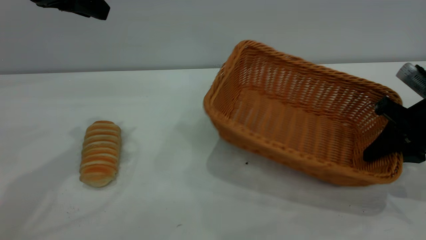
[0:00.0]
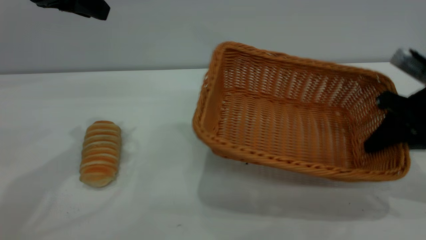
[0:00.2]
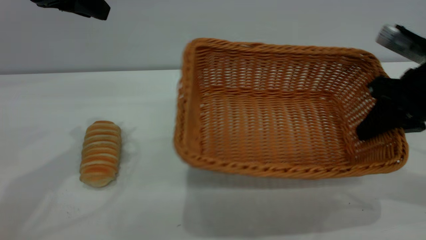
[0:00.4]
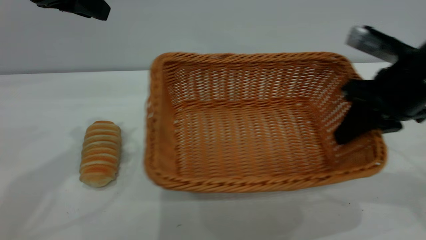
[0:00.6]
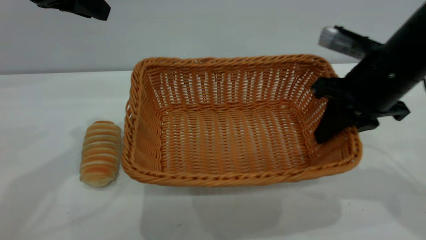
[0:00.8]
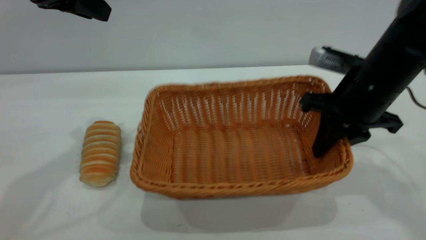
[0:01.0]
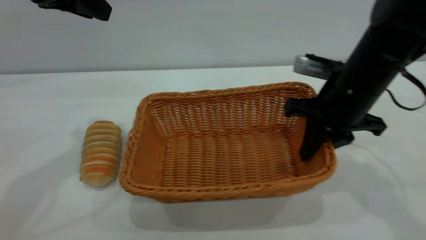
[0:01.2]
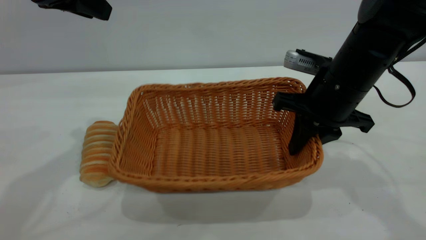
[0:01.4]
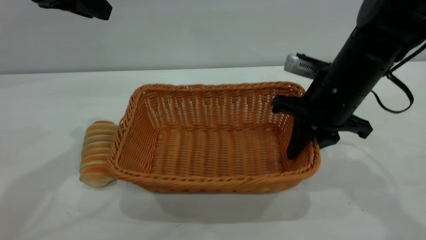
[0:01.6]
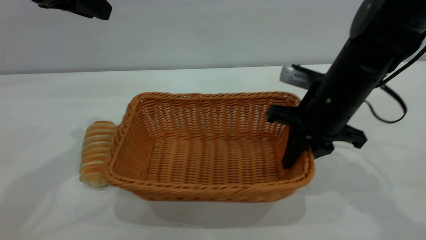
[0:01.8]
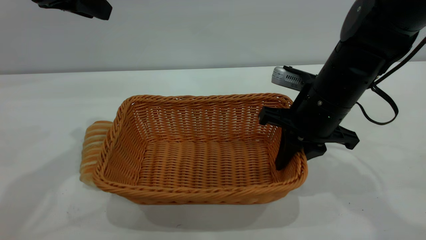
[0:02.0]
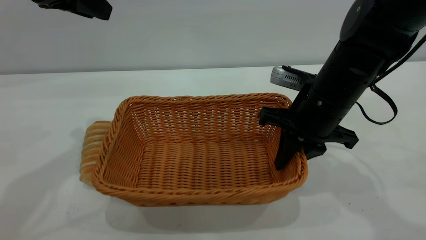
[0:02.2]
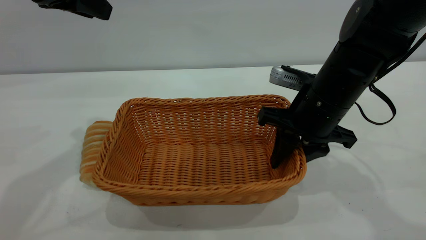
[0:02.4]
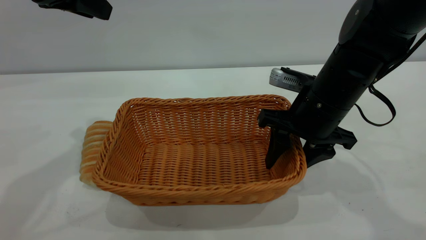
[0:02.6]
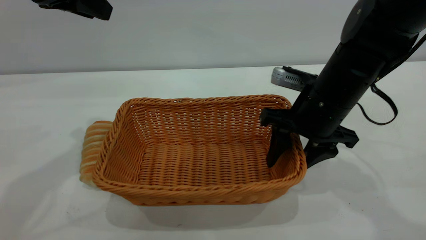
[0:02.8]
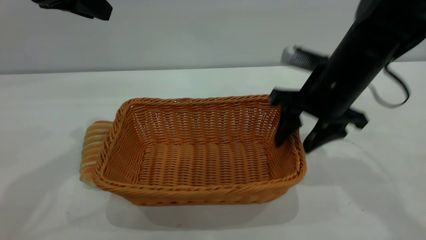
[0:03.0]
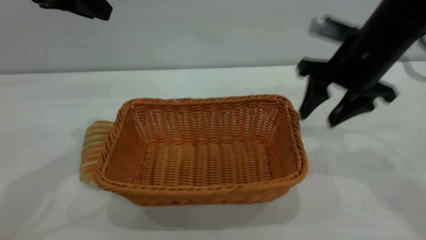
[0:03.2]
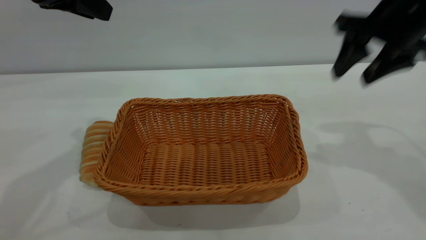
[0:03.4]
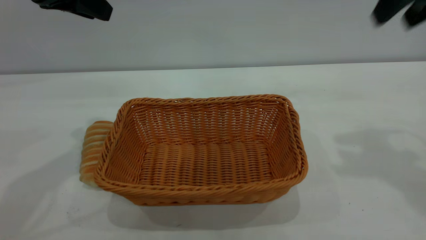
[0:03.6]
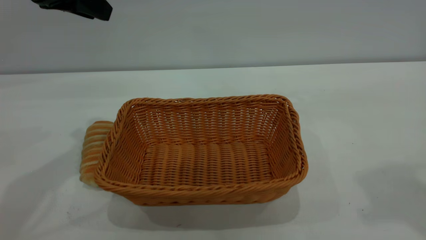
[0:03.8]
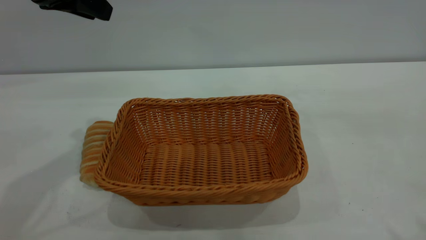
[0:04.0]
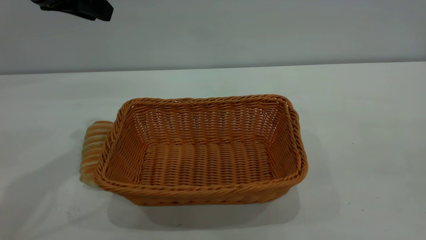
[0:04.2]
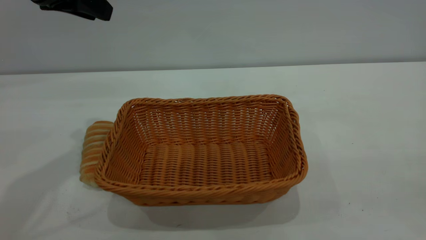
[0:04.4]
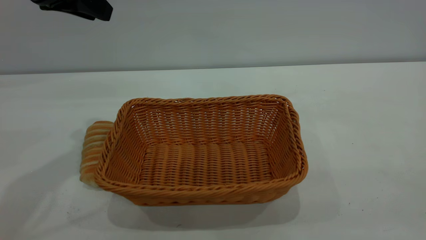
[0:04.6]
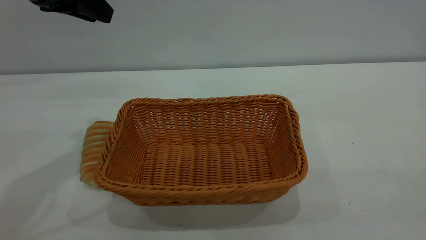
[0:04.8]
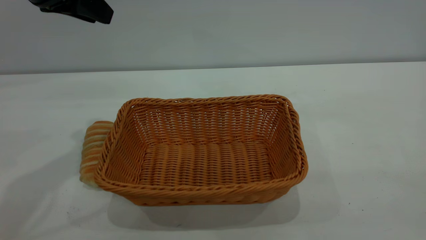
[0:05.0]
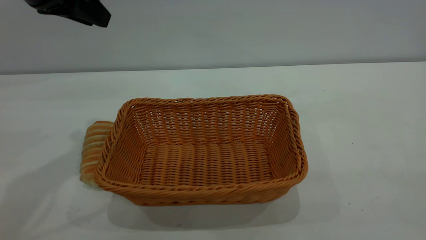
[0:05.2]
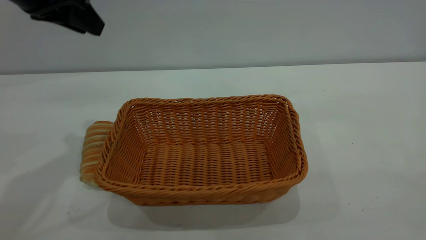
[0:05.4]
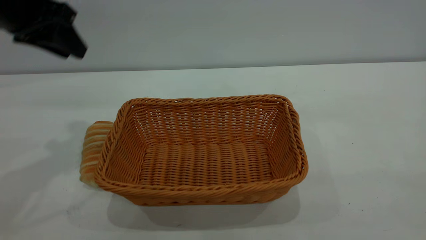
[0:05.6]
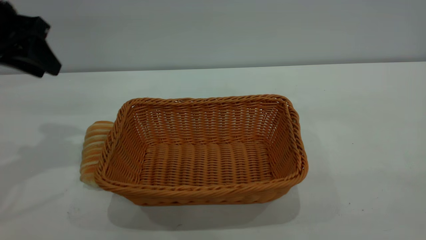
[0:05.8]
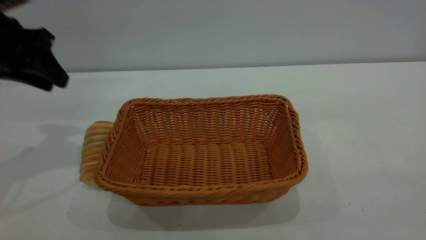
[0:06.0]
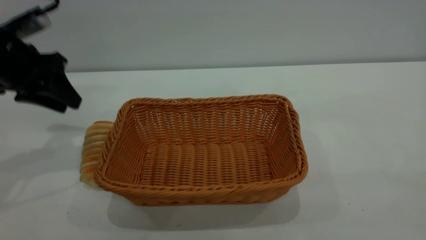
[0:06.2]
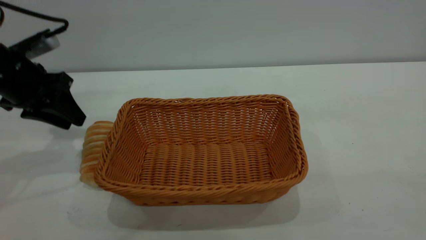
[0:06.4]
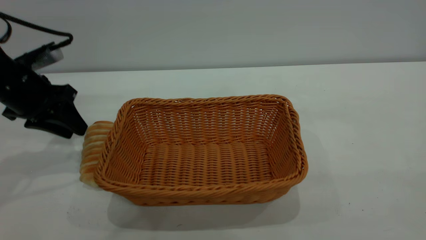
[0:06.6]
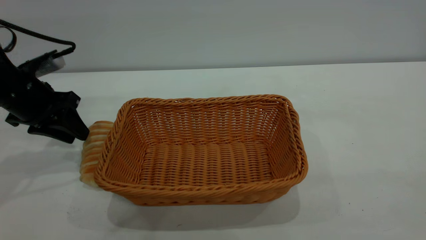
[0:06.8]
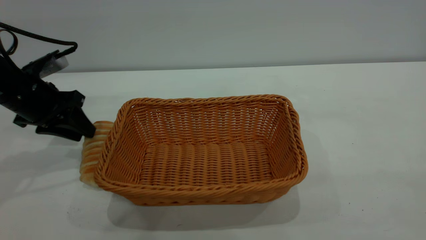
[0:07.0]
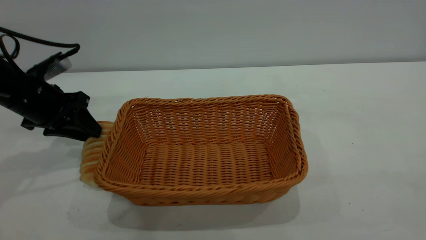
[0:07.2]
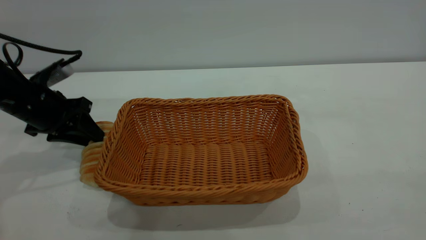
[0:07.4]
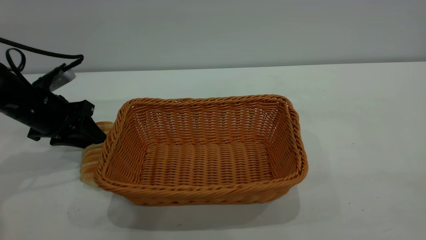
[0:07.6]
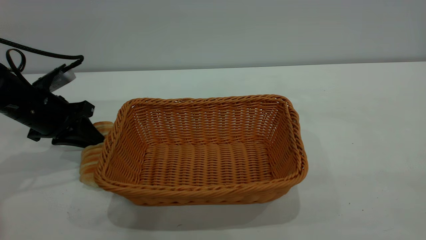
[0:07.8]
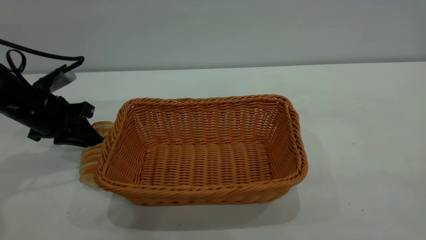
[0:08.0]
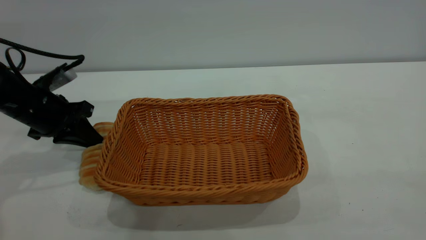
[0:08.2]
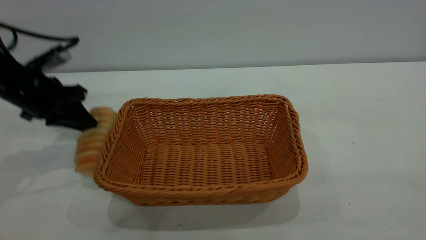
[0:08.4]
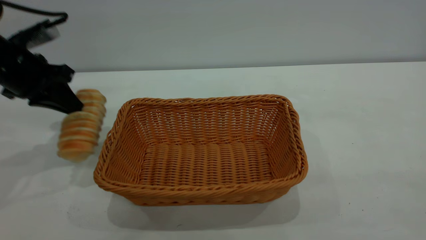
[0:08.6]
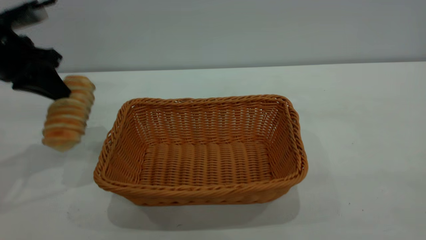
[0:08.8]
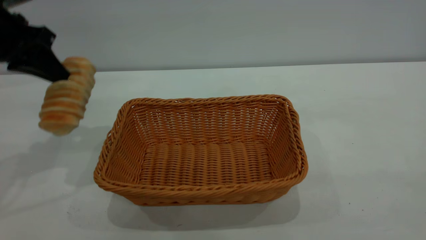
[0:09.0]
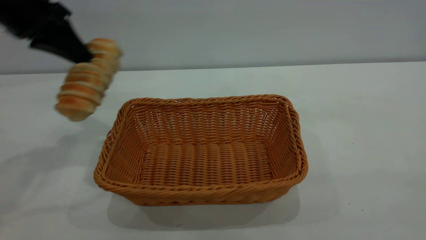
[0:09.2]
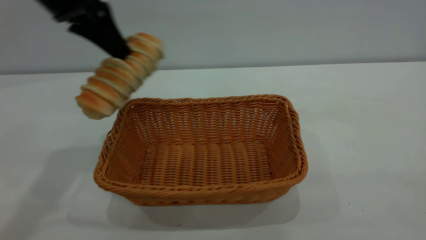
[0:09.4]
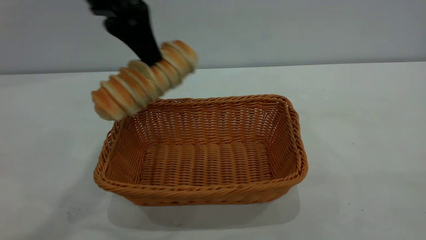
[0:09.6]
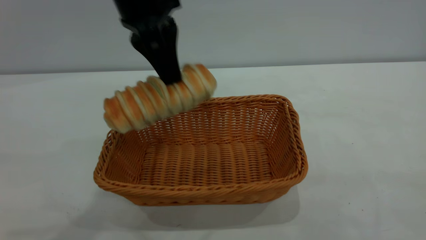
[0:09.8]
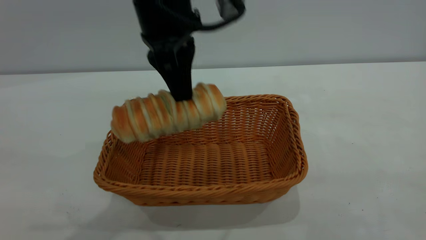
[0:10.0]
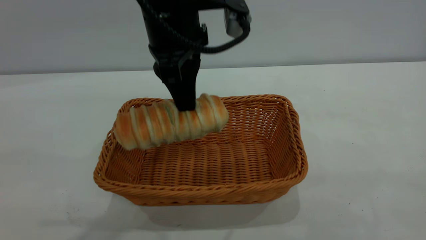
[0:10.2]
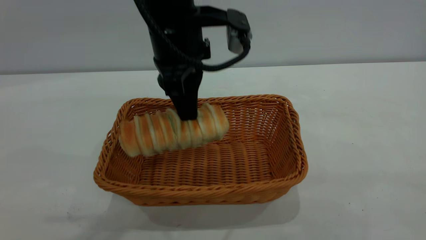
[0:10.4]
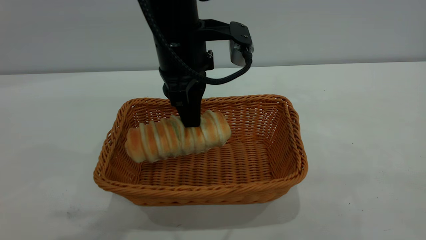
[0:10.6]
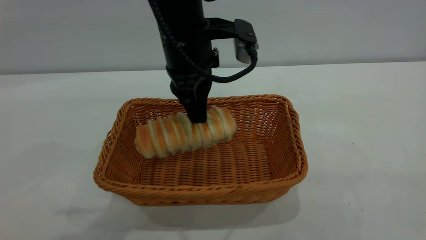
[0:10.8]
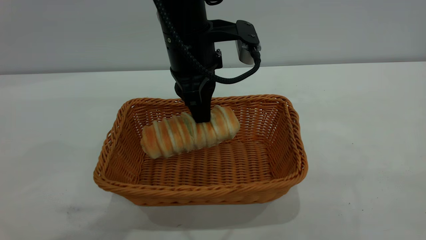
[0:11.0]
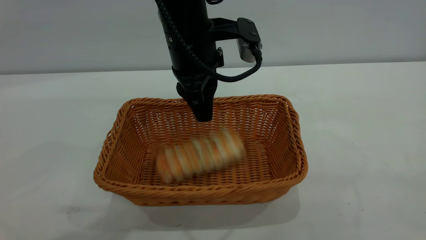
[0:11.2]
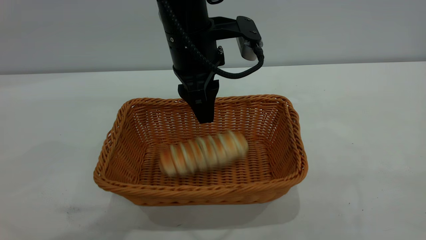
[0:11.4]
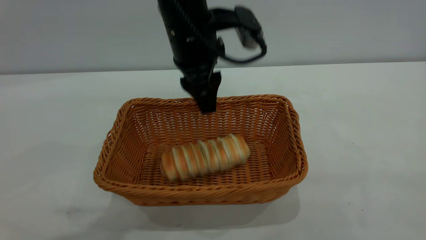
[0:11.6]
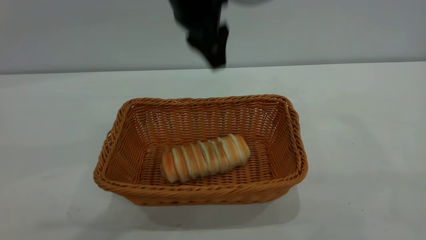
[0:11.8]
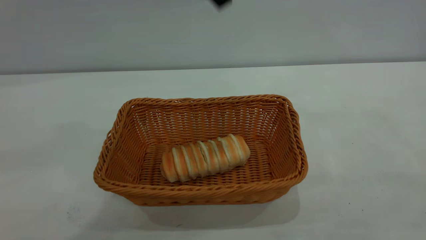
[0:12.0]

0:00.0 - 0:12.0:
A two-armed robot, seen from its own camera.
Task of the whole recording: One hand grasps the yellow basket and places it in the middle of the table, while the other hand picks up the long bread and puts it into the yellow basket.
Step, 0:00.0 - 0:03.2: Move the basket to the center of view.
Step, 0:08.8 - 0:11.8: place the bread into the basket.
0:00.0 - 0:01.6: The right gripper travels to the left by about 15 cm.
0:01.6 - 0:03.0: The right gripper opens up.
0:03.0 - 0:04.4: The right gripper goes roughly 40 cm backward and upward.
0:04.4 - 0:06.0: The left gripper heads downward and to the left, covering some 10 cm.
0:06.0 - 0:07.6: The left gripper moves downward, roughly 10 cm.
0:07.6 - 0:09.0: The left gripper goes about 15 cm upward, and closes up.
0:09.0 - 0:10.4: The left gripper shifts roughly 25 cm to the right.
0:10.4 - 0:12.0: The left gripper is displaced upward by roughly 15 cm, and opens up.

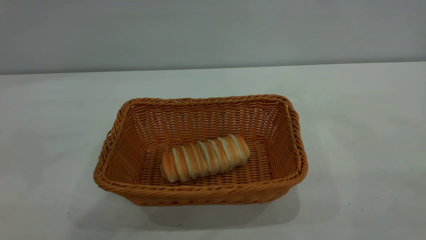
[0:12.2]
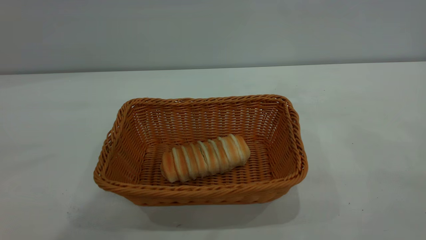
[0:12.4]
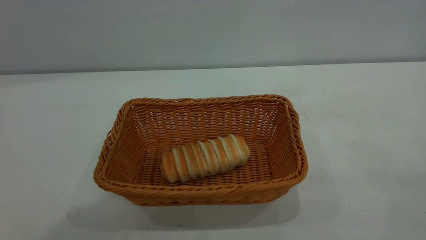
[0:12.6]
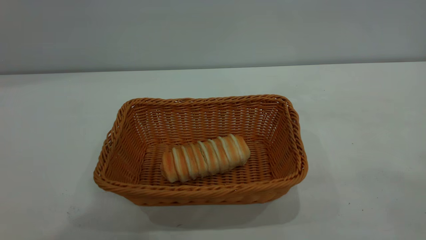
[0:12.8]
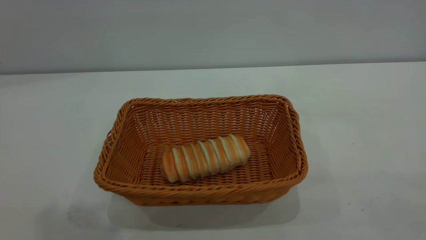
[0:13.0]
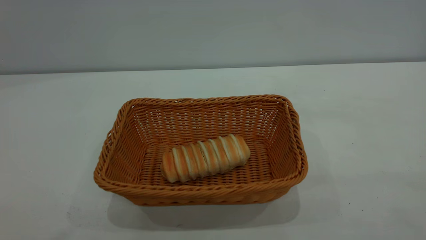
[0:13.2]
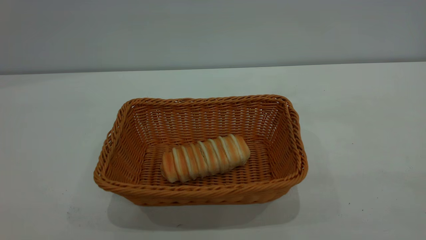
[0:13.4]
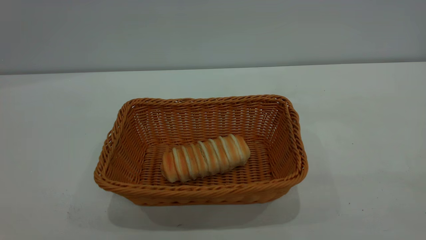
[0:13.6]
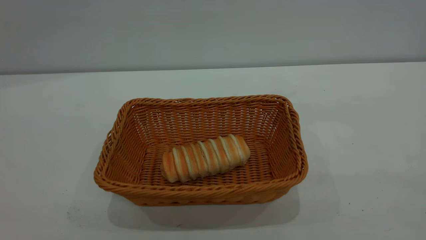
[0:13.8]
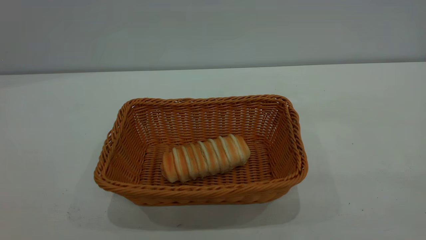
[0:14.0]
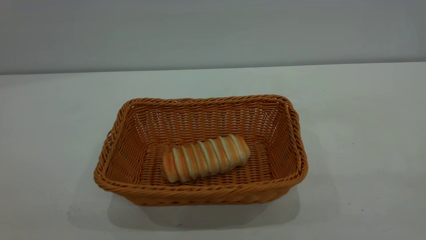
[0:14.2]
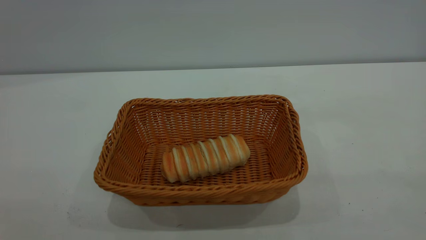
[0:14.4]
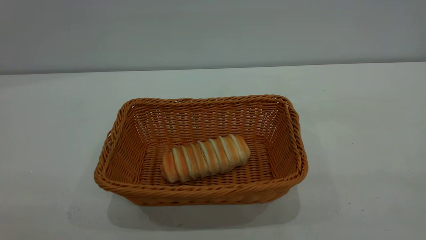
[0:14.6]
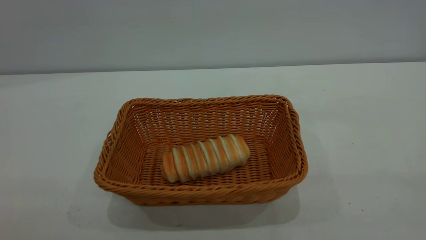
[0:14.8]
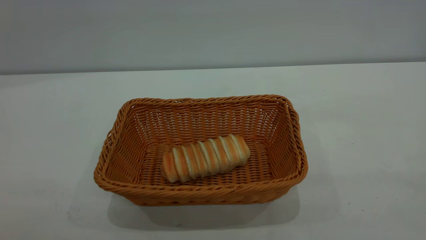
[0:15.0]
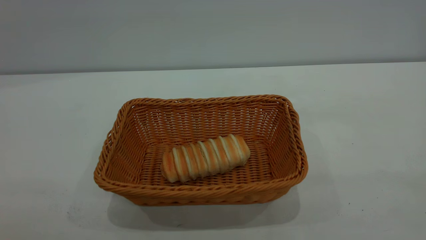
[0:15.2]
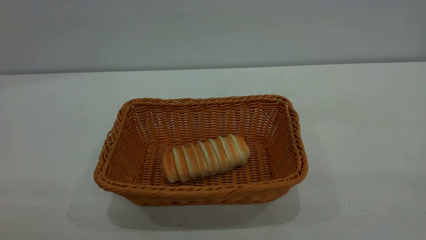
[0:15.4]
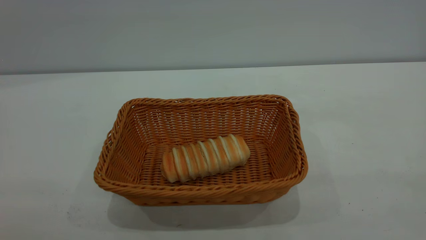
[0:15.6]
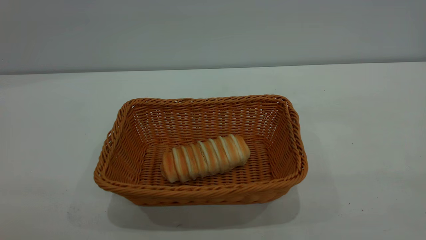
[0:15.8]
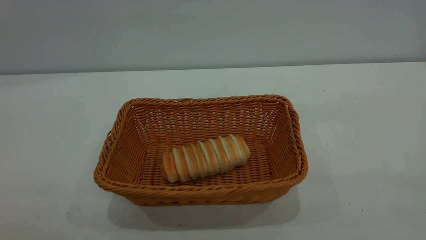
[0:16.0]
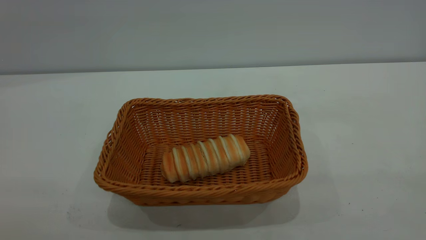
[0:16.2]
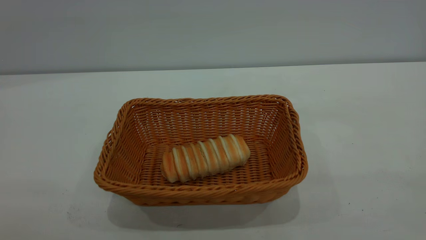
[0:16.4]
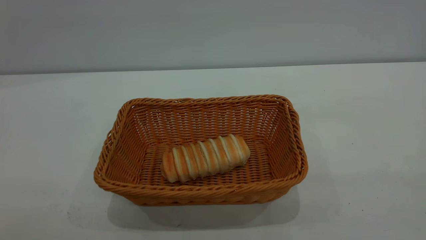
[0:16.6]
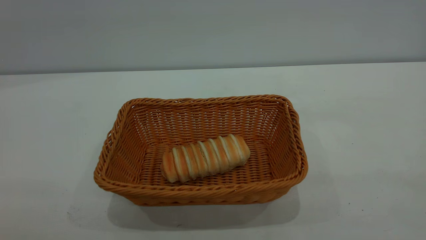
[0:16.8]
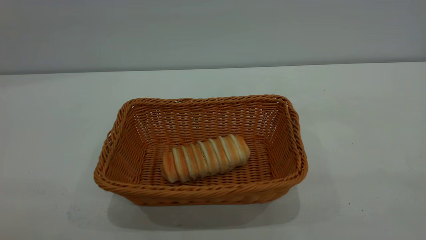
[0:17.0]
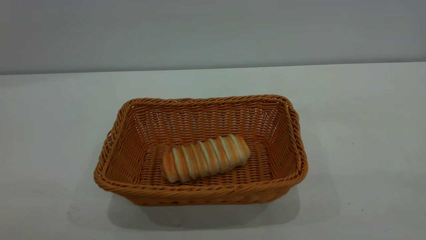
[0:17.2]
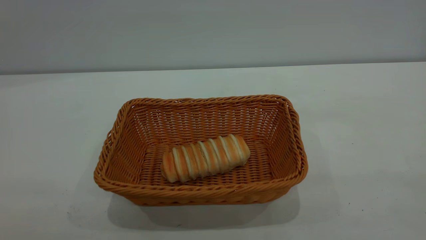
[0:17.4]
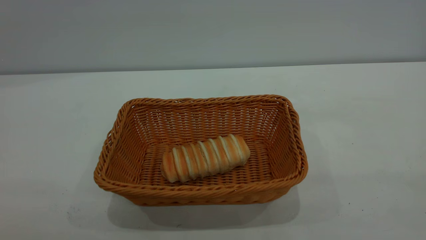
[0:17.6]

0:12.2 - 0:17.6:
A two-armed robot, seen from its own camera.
Task of the whole recording: One hand grasps the yellow basket and places it in the middle of the table, while the other hand picks up the long bread and puts it into the yellow basket.
0:15.0 - 0:17.6: The two grippers keep their place.
